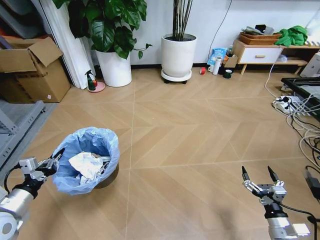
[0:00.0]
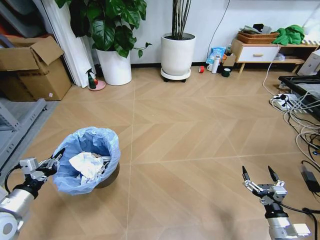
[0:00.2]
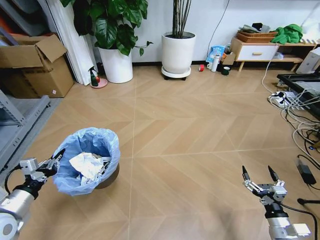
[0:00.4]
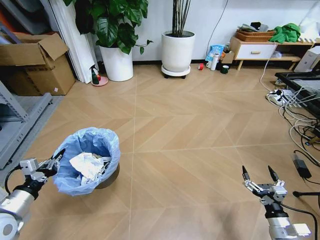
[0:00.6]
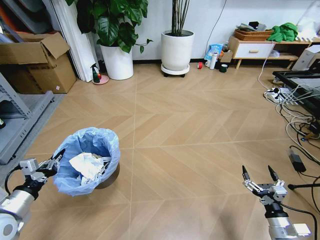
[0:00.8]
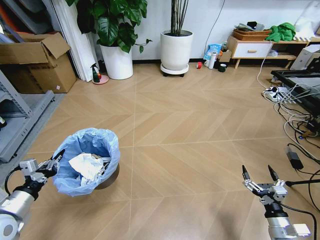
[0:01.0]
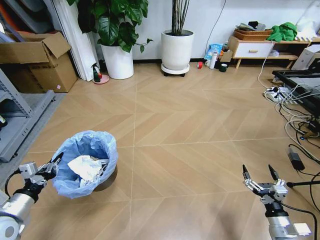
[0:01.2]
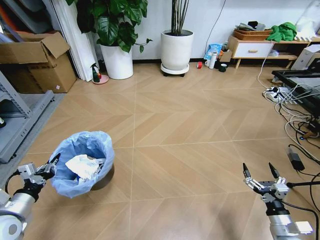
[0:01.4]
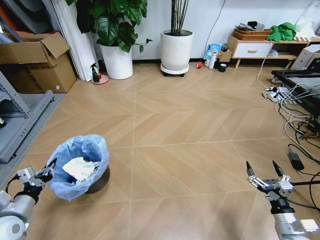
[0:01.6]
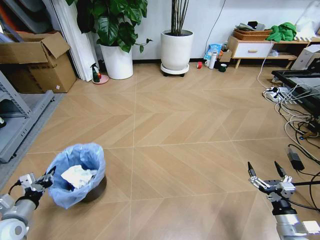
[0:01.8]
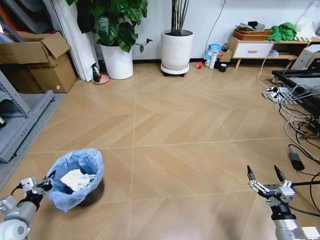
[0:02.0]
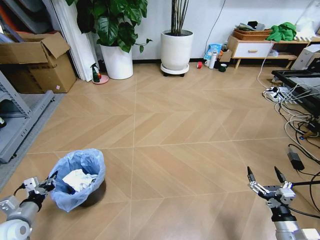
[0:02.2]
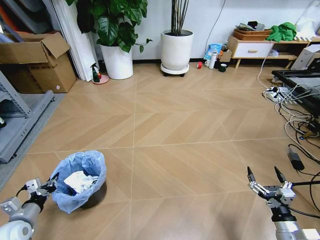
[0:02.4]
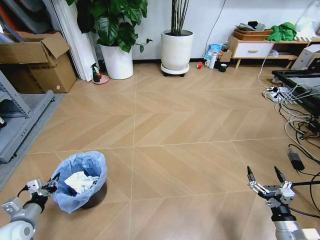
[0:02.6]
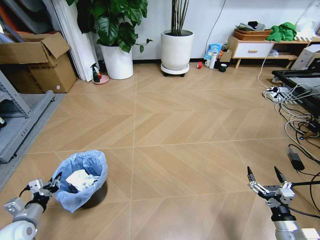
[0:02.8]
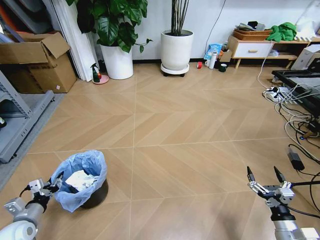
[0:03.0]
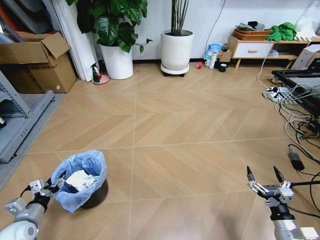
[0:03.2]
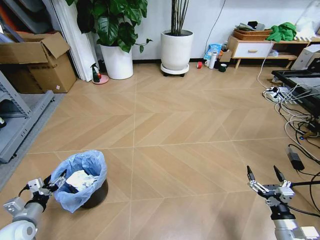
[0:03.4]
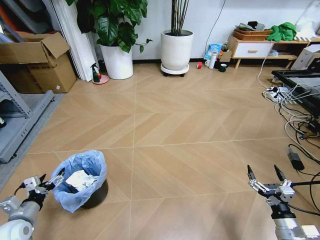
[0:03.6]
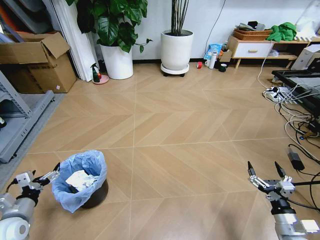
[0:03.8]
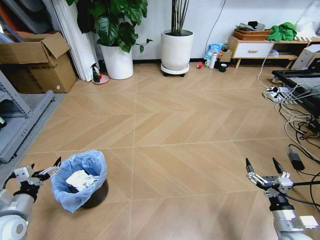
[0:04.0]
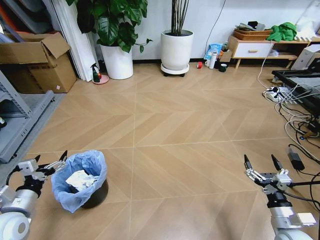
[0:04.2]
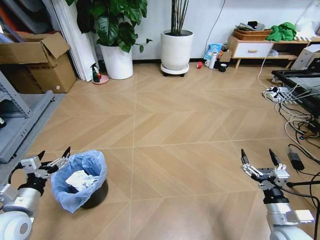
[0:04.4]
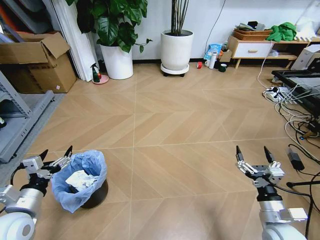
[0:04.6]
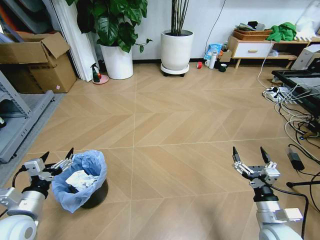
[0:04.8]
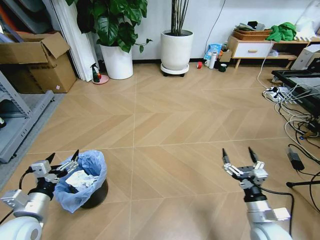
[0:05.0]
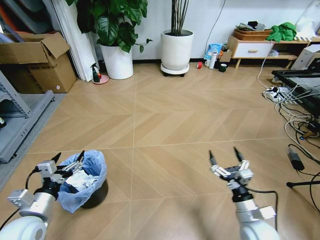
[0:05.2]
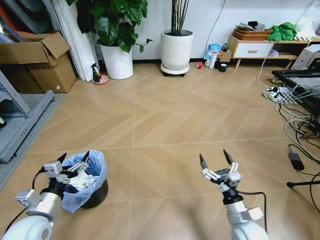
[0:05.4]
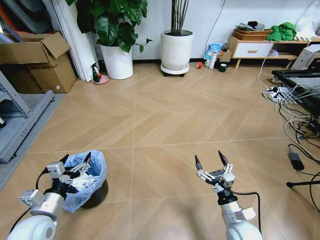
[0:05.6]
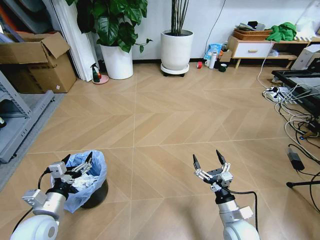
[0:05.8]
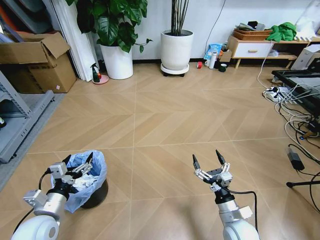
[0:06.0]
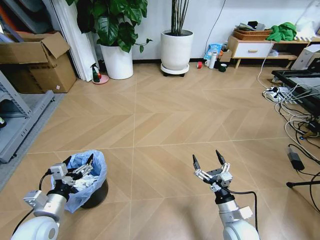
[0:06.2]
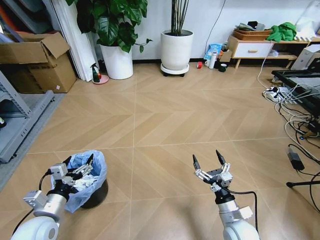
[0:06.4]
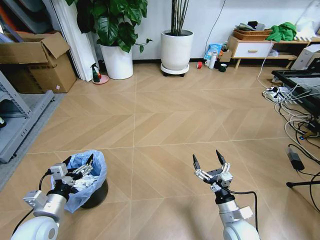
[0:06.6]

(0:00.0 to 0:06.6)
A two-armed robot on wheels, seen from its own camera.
Task of the whole recording: Pick up the trash bin and place the garbage on the floor into it.
0:00.0 - 0:01.6: The left gripper shifts by roughly 5 cm.
0:01.6 - 0:03.2: The left gripper goes roughly 10 cm downward, and opens up.
0:03.2 - 0:05.0: The right gripper goes approximately 10 cm to the left. Meanwhile the left gripper goes approximately 15 cm upward and to the right, and opens its fingers.
0:05.0 - 0:06.6: The right gripper heads to the left, covering approximately 5 cm.
